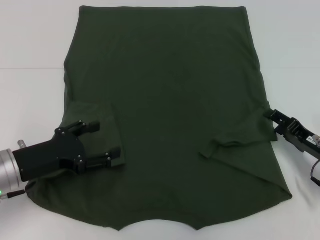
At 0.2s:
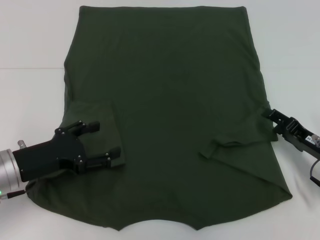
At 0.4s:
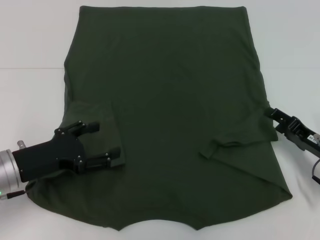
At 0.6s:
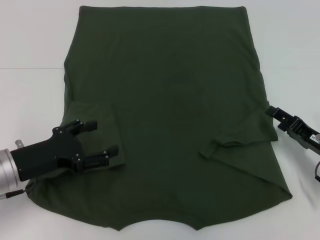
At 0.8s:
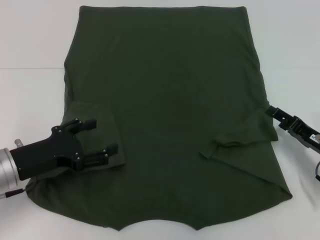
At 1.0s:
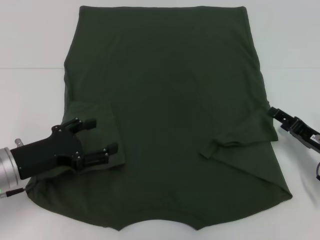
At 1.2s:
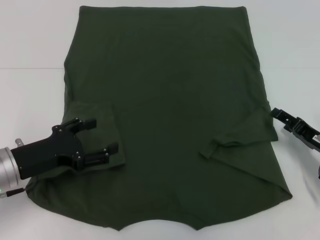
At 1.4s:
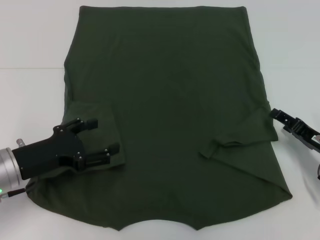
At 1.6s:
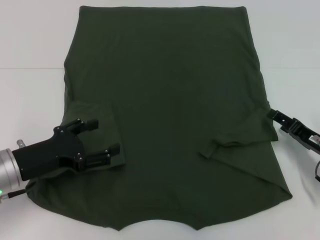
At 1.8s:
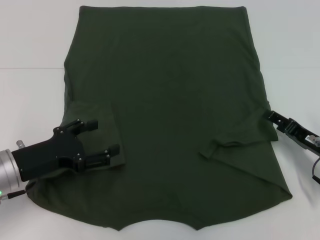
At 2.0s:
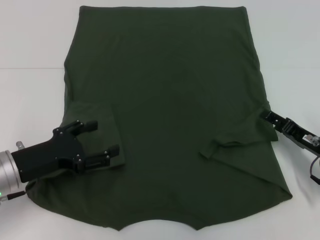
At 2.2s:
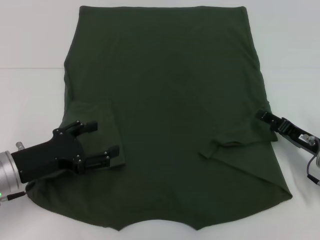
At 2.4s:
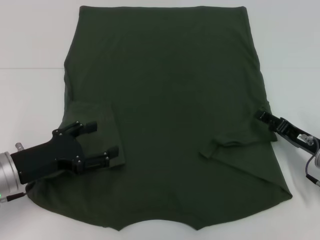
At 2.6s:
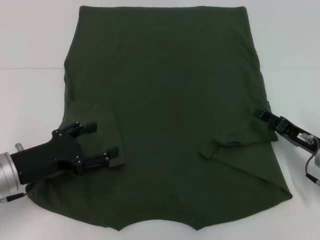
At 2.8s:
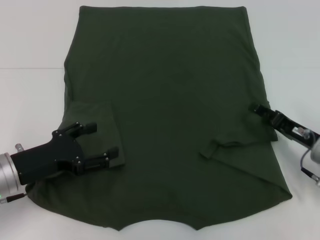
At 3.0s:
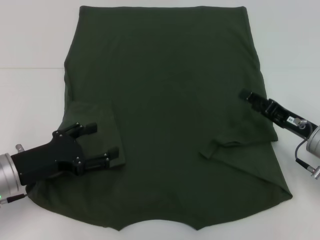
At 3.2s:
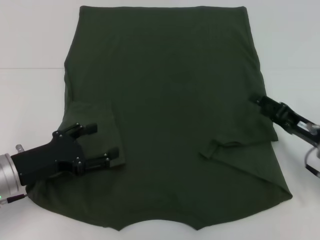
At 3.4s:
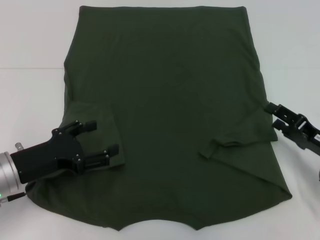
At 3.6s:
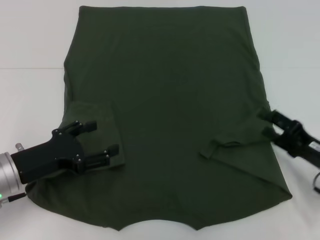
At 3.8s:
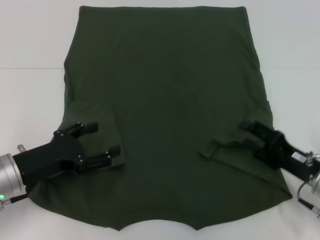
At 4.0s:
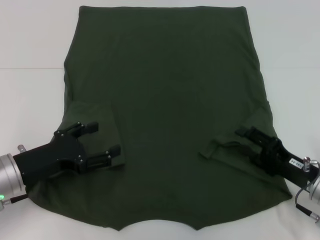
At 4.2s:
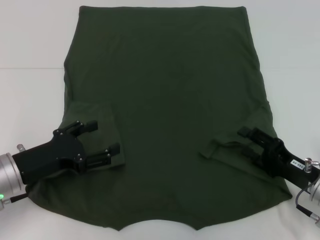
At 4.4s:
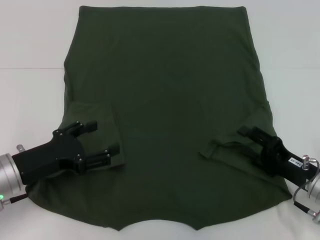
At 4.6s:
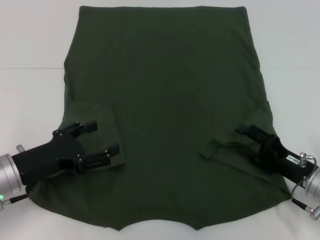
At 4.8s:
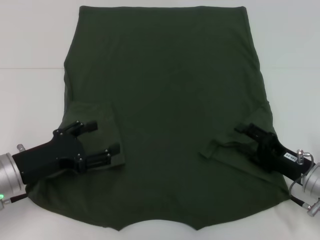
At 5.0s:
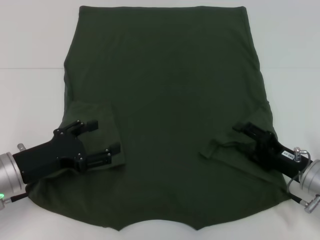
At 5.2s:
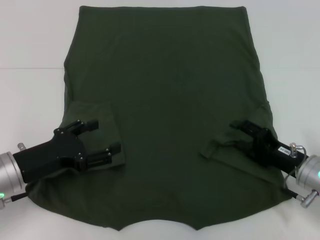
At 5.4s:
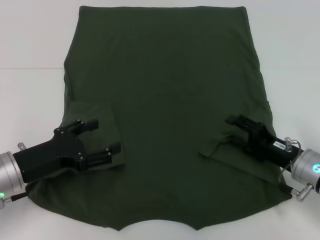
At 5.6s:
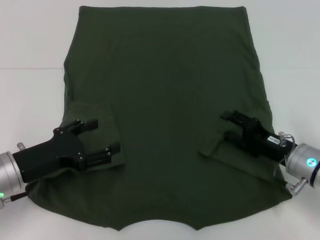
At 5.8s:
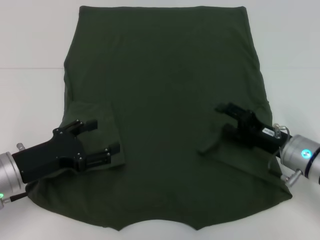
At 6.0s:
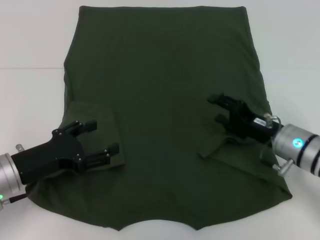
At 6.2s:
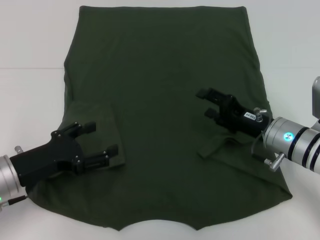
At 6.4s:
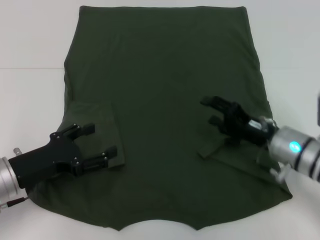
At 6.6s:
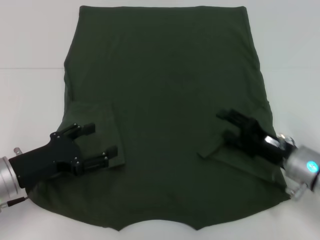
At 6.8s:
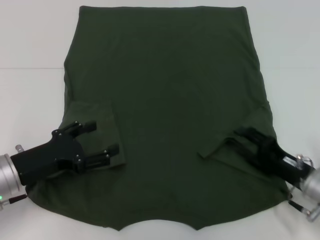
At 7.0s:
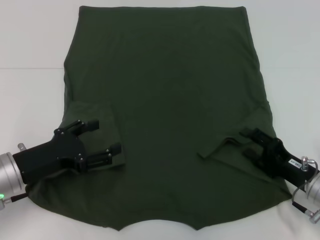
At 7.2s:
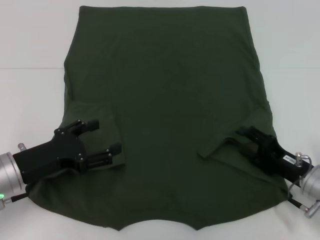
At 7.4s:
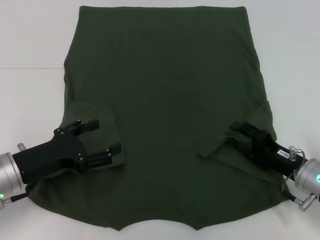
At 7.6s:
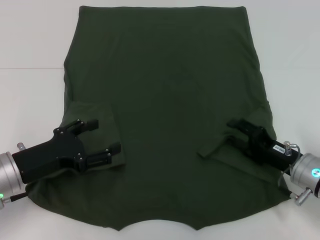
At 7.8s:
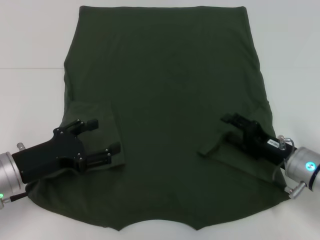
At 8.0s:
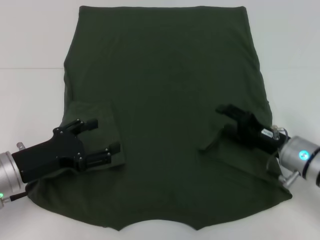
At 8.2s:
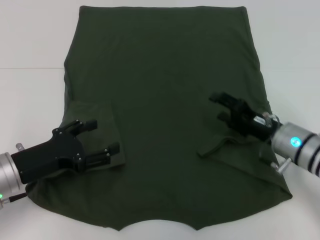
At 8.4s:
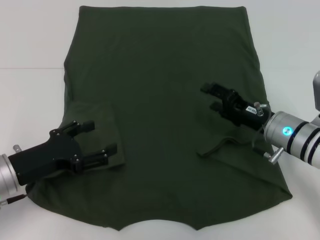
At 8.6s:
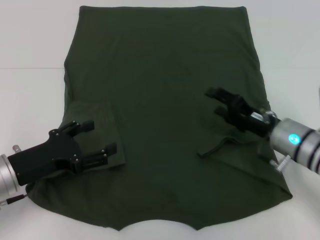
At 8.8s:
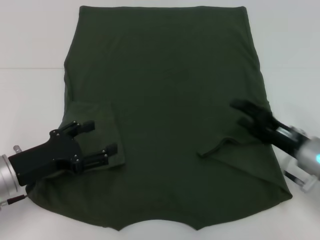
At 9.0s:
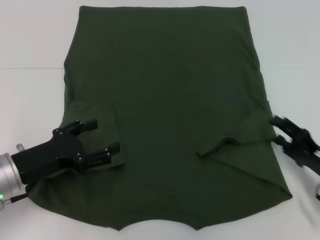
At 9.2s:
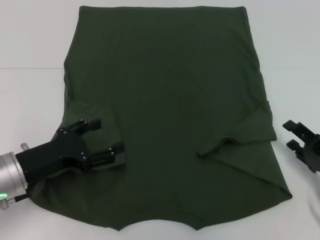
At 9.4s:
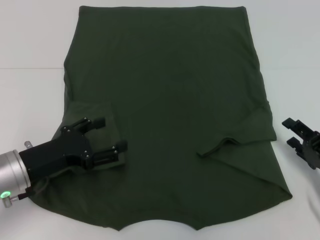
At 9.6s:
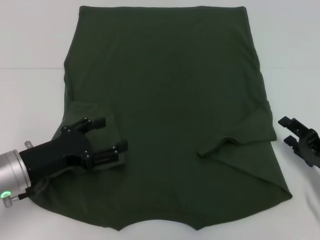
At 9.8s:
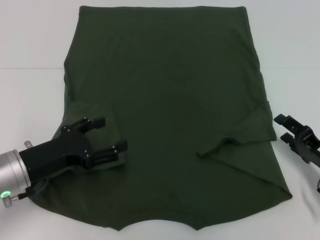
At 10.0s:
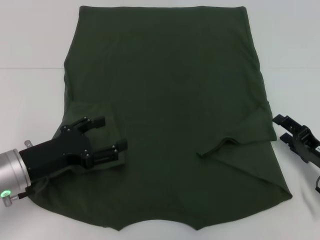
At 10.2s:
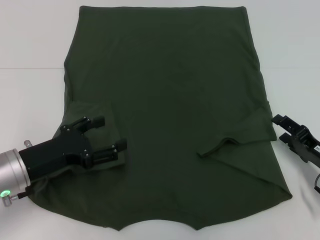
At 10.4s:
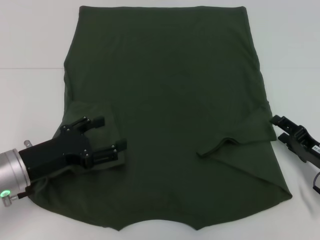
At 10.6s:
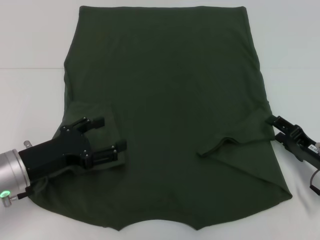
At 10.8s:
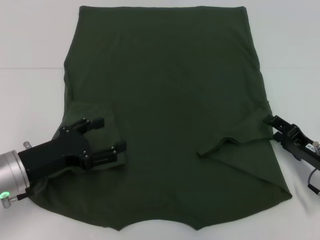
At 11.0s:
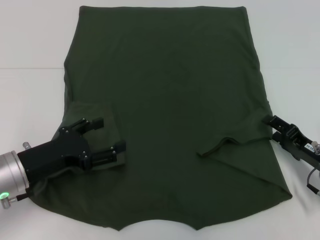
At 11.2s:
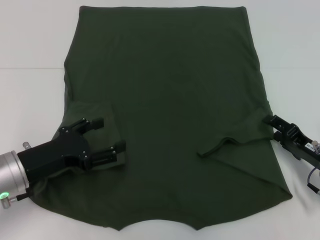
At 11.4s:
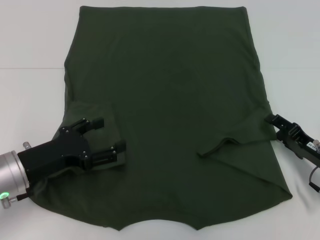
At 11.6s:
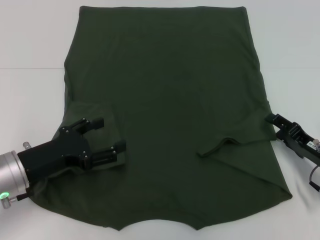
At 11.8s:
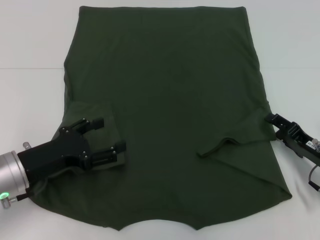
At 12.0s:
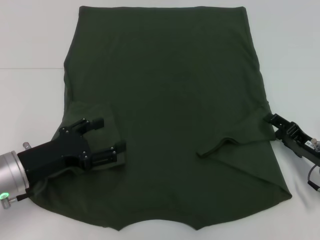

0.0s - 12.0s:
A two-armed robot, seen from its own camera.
0.0s - 3.0s: There are only small adjustments of the grippers.
3.0s - 4.4s: The right gripper moves backward, approximately 5 cm.
4.4s - 6.0s: The right gripper goes some 5 cm forward.
9.0s - 10.4s: The grippers stay close to where they were, moving slightly.
10.4s - 12.0s: Neither gripper changes place.

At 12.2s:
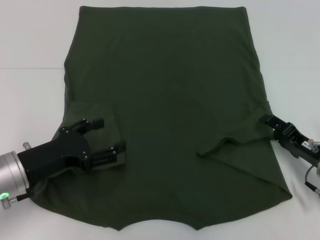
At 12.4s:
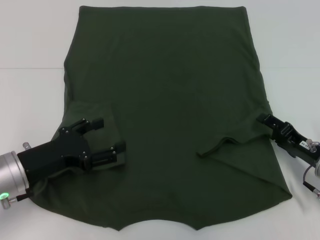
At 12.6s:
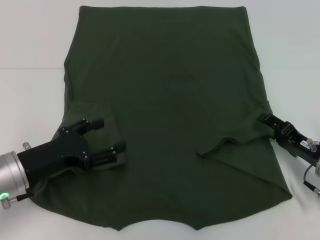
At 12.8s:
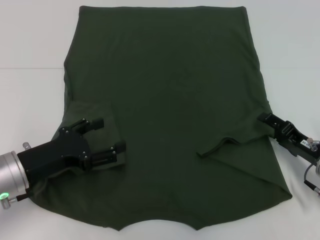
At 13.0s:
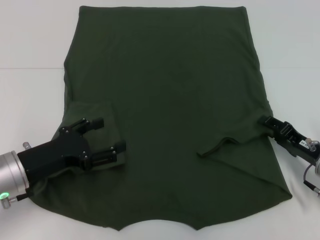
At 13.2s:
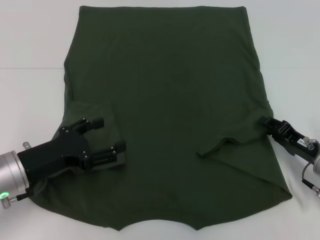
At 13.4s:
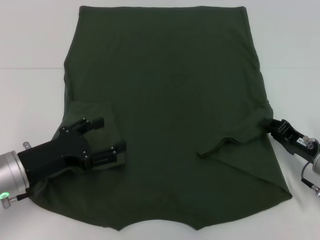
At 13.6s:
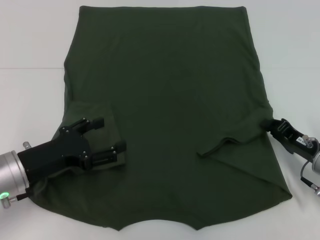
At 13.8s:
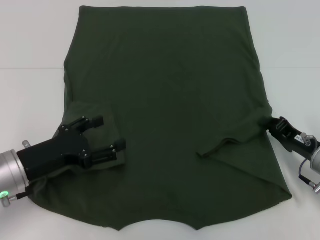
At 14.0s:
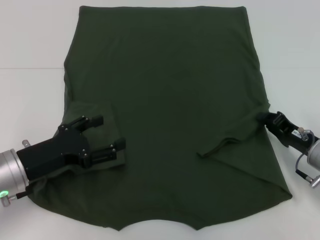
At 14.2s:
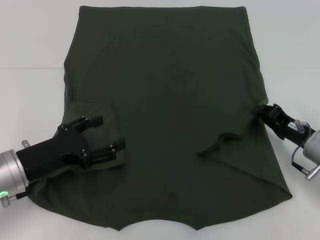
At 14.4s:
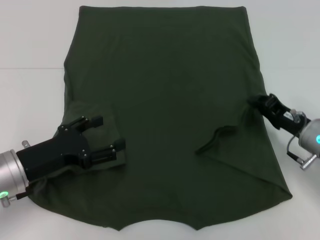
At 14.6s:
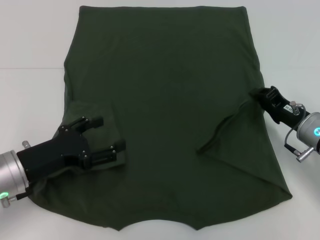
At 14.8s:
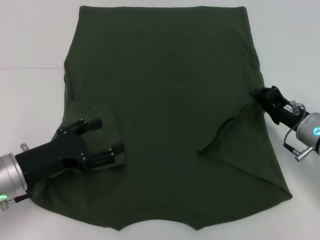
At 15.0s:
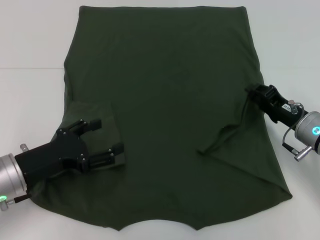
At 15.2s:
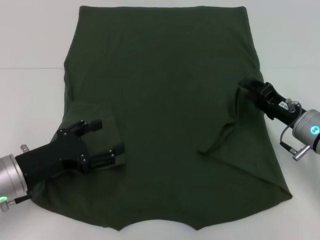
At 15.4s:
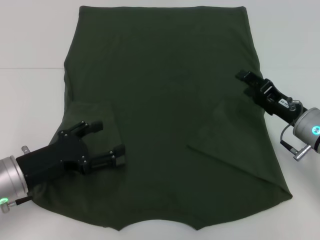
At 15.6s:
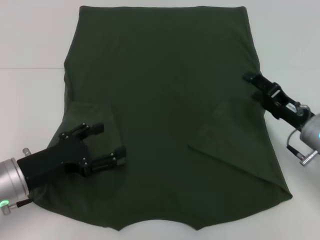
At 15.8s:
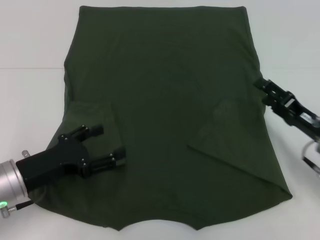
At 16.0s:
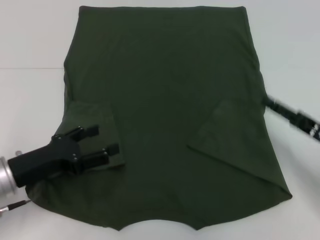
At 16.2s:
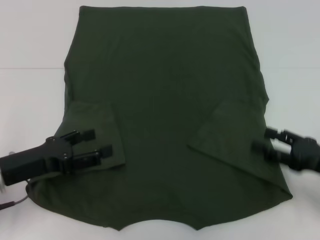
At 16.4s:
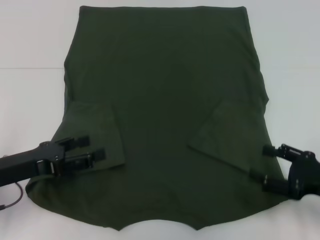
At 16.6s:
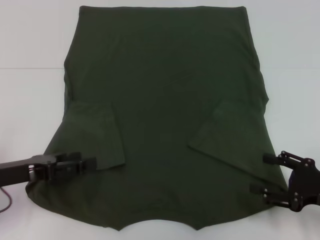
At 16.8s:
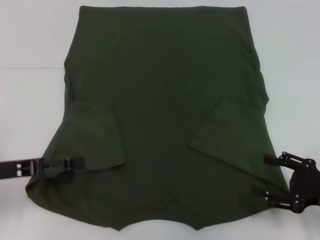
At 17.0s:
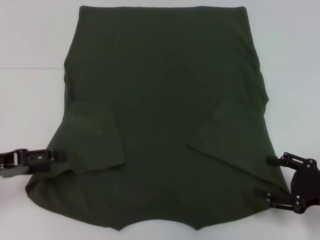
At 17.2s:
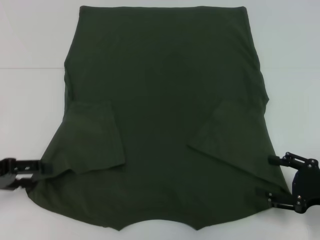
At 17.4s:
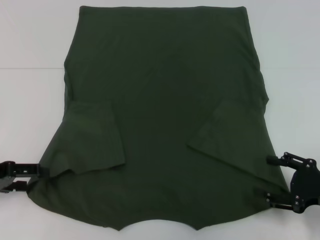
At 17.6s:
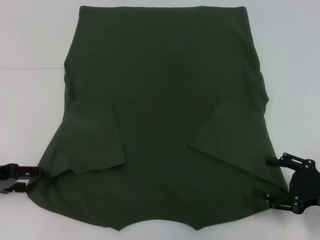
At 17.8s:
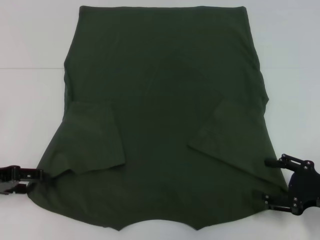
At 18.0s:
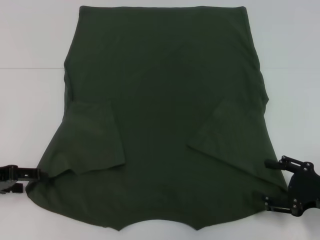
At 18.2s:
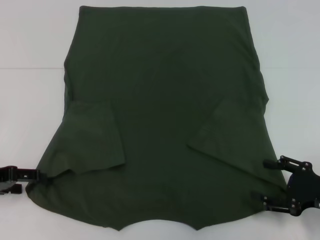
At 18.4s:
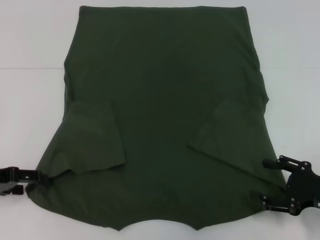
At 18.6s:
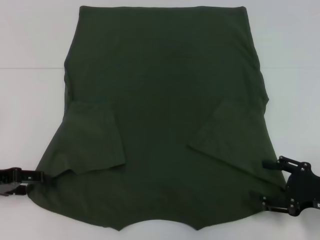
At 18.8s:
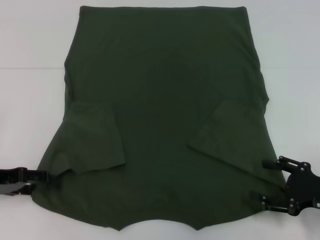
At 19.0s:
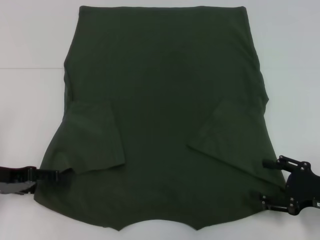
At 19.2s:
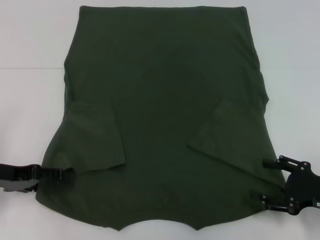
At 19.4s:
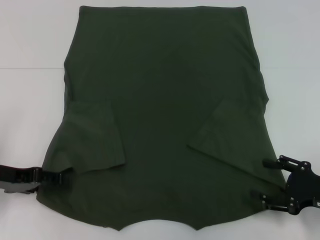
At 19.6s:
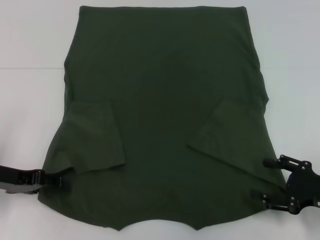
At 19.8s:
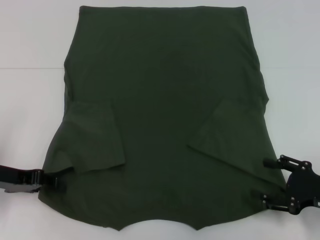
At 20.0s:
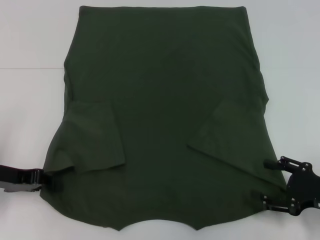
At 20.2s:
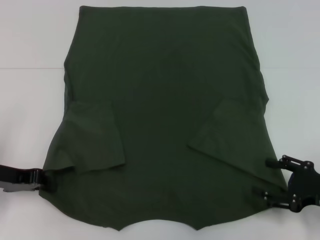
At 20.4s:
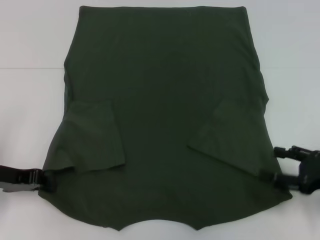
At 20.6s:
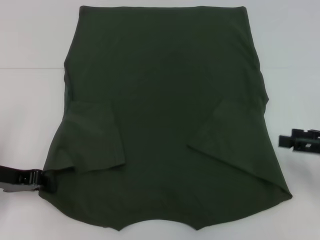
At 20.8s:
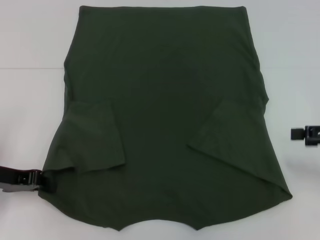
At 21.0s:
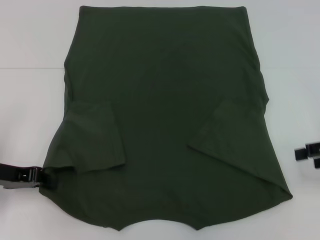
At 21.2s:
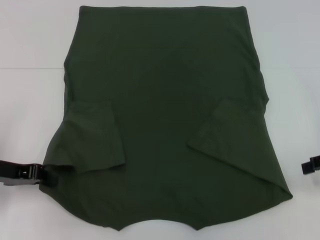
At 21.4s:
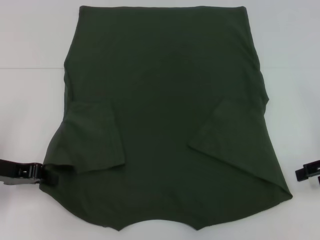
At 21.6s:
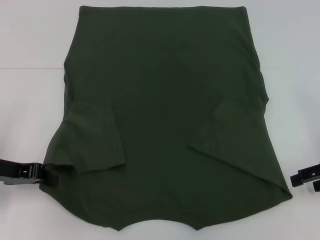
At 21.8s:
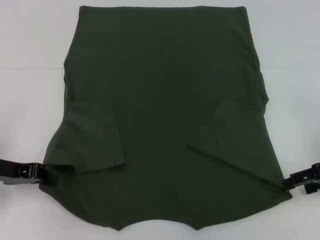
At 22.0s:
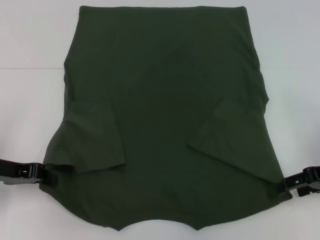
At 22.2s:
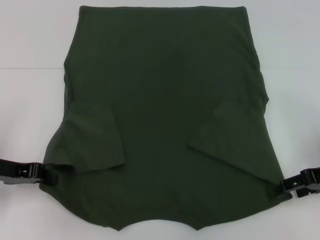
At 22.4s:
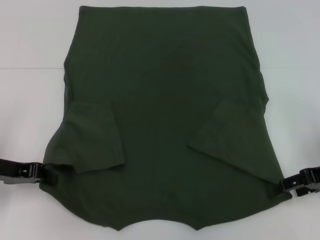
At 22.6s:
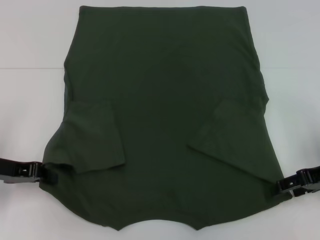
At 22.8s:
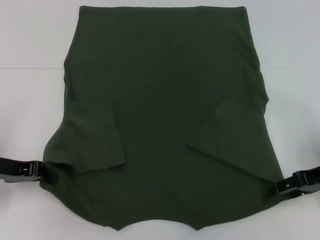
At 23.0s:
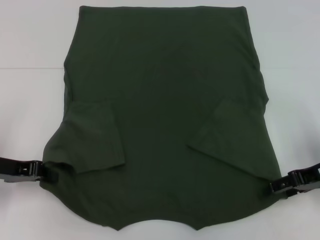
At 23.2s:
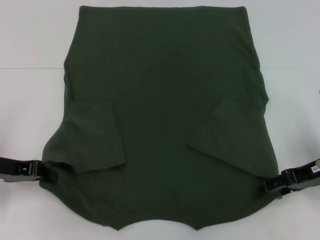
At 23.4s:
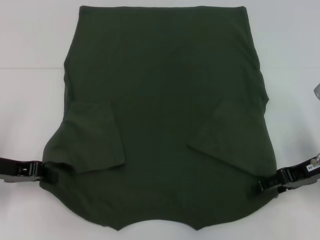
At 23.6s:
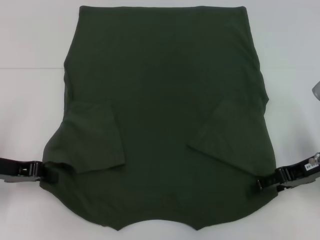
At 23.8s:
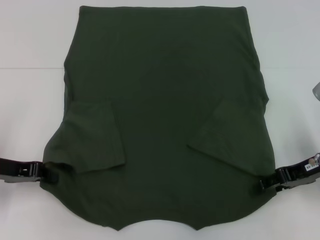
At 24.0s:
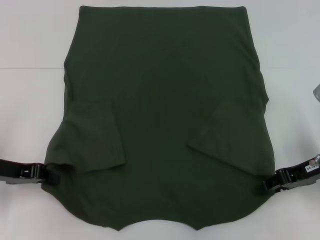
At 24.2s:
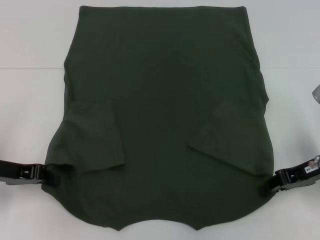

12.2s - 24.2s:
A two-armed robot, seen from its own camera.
Step, 12.2s - 15.4s: Fold the bottom right sleeve with your right hand.
Step, 15.6s - 20.4s: Grab the bottom left corner with your left hand.
12.2s - 13.8s: The right gripper closes up.
13.8s - 15.2s: The right gripper moves some 5 cm.
15.2s - 16.6s: The left gripper moves approximately 5 cm, while the right gripper moves backward and to the right, approximately 15 cm, and opens its fingers.
16.6s - 18.2s: The left gripper is displaced to the left by some 5 cm.
18.2s - 19.8s: The left gripper closes.
19.8s - 21.2s: The right gripper travels upward and forward by roughly 15 cm. Meanwhile the left gripper closes up.
21.2s - 22.6s: The right gripper changes place by approximately 5 cm.
22.6s - 24.2s: The right gripper closes.
